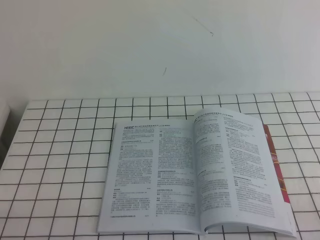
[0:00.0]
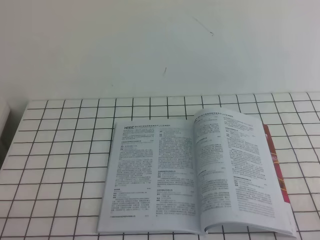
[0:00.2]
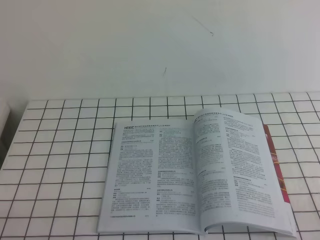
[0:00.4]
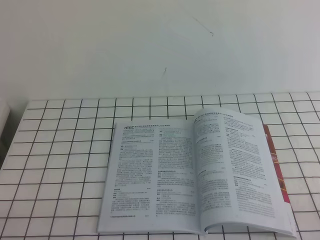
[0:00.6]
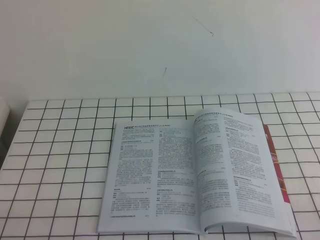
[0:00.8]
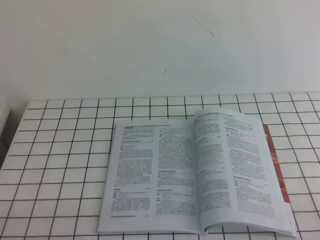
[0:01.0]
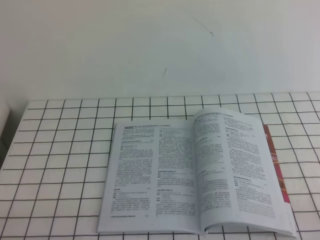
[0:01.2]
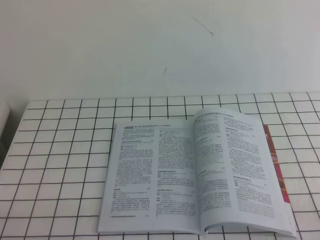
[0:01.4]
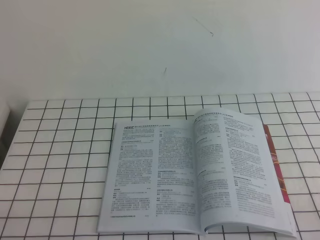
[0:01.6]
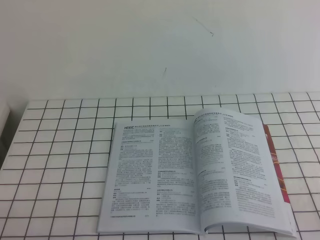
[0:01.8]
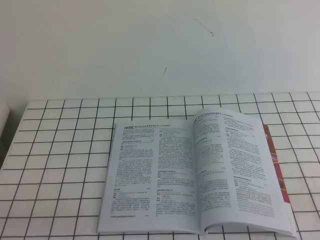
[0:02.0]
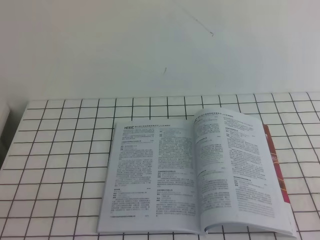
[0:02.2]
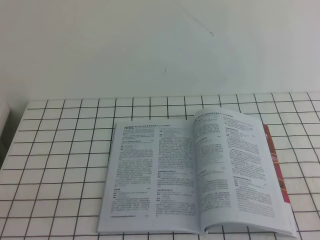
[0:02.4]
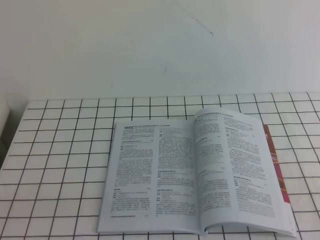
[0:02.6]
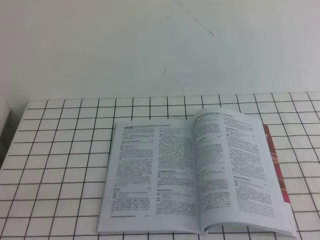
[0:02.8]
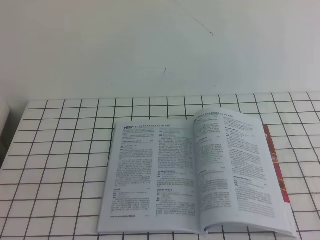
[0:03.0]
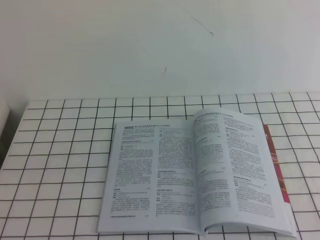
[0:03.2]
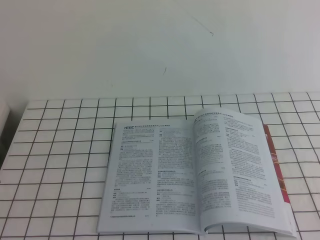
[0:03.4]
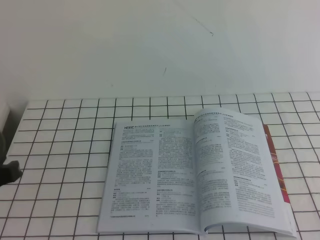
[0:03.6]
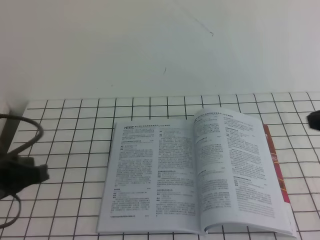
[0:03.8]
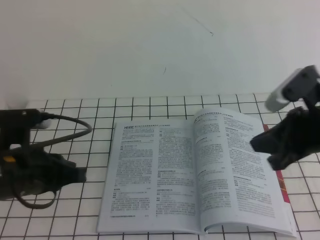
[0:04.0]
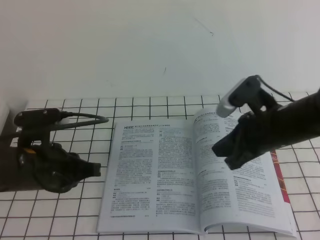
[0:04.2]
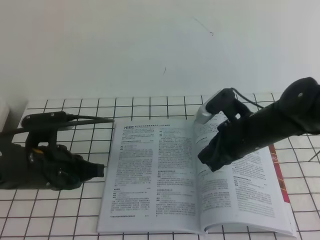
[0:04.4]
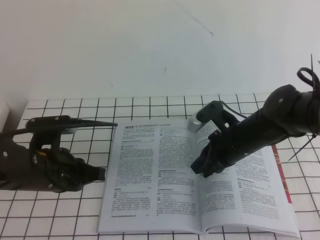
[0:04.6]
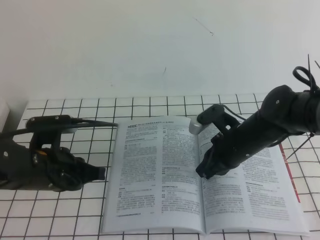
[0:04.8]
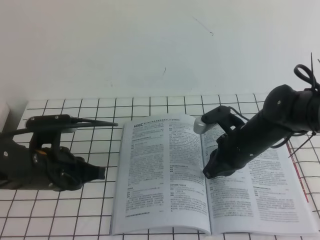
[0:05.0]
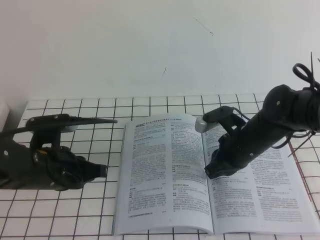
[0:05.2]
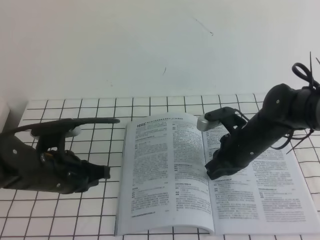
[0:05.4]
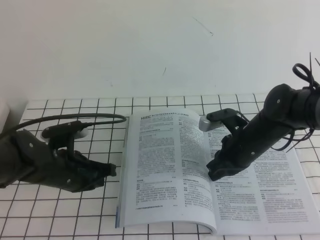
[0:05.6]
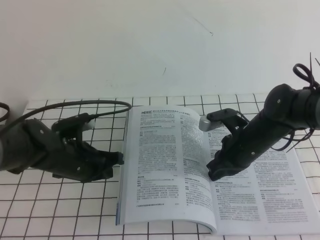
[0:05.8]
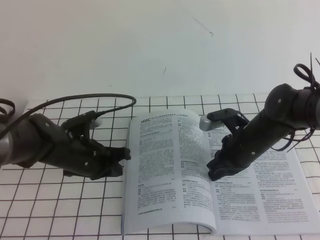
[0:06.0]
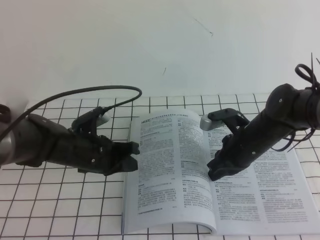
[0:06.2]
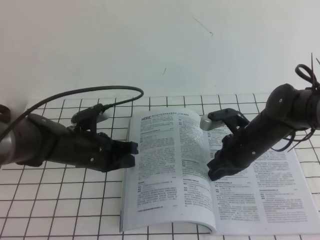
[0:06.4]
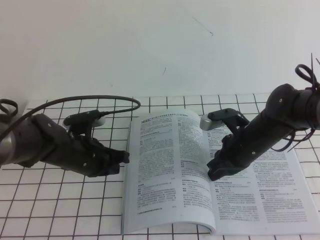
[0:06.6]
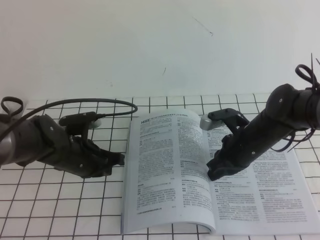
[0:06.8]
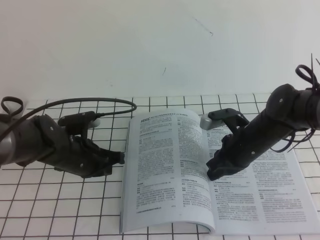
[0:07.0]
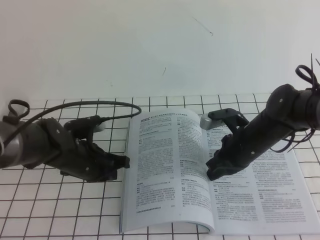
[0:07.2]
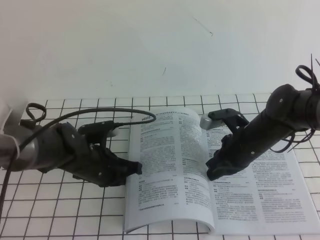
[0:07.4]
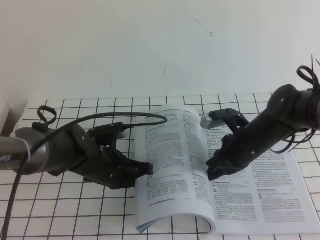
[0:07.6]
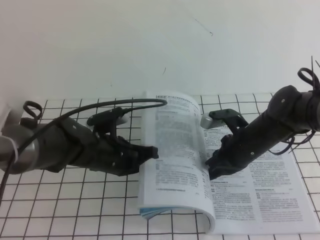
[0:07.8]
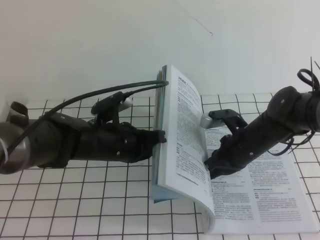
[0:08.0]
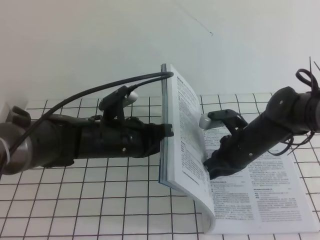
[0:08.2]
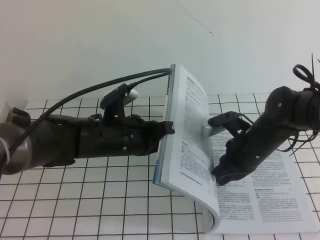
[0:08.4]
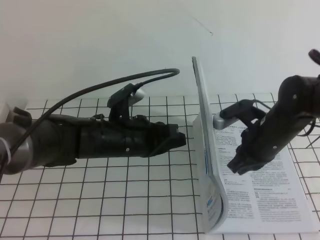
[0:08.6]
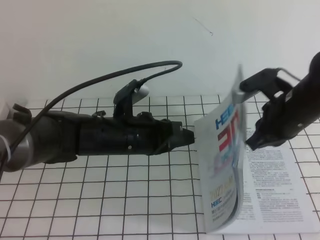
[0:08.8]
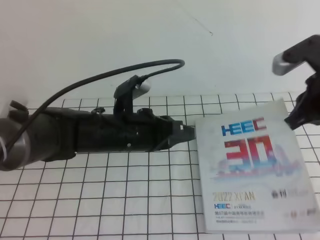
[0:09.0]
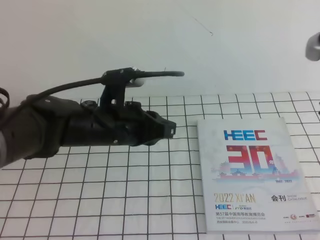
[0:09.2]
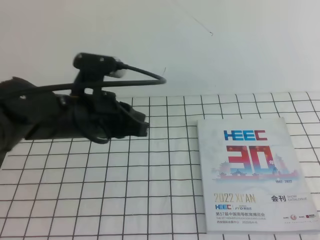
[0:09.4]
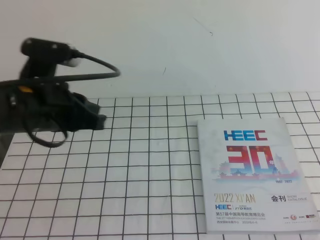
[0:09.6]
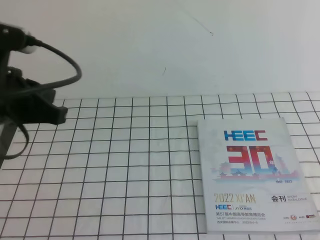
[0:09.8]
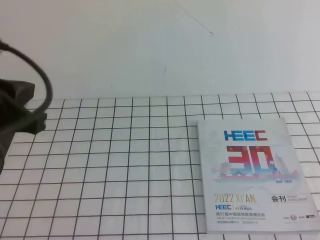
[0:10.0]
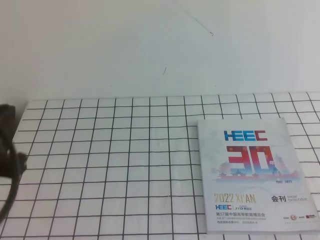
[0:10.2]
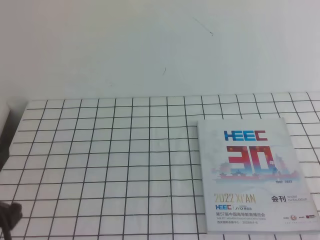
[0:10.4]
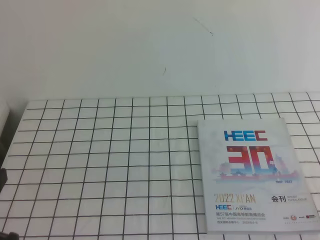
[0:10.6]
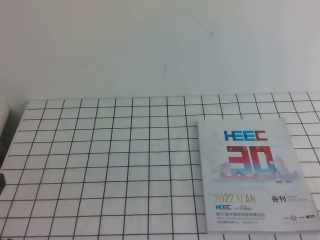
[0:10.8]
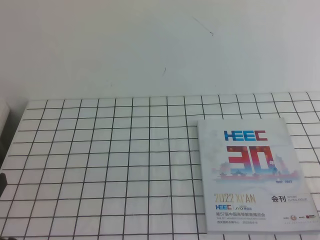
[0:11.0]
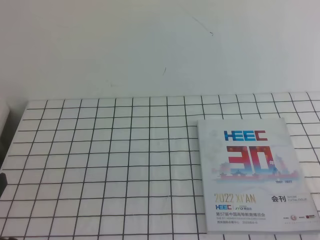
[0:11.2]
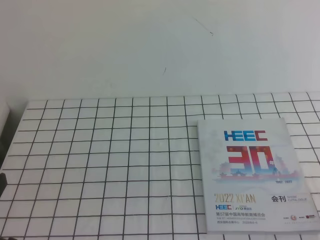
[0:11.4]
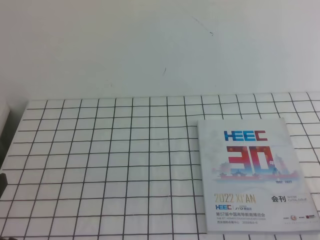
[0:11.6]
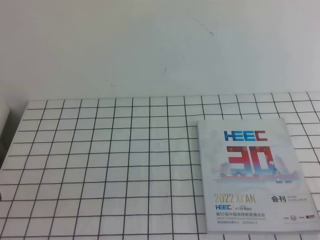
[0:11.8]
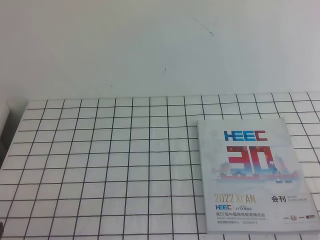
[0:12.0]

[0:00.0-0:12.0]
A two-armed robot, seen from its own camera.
Task of the whole recording: on the white tablecloth, hold the book with one hand and close it with the other.
0:00.0 to 0:01.6: Both grippers stay about where they are.
0:03.0 to 0:04.4: The left gripper is displaced forward by approximately 20 cm, while the right gripper shifts approximately 40 cm forward, to the left and downward.
0:04.4 to 0:06.0: The right gripper moves downward, about 10 cm. The left gripper travels forward and downward by roughly 10 cm.
0:06.0 to 0:07.6: The grippers make only small movements.
0:07.6 to 0:09.0: The left gripper moves upward, roughly 10 cm. The right gripper is displaced upward and to the right by roughly 20 cm.
0:09.0 to 0:10.4: The right gripper is displaced backward by roughly 25 cm; the left gripper is displaced backward, to the left and upward by about 25 cm.
0:10.4 to 0:12.0: The left gripper shifts some 10 cm downward and backward.
